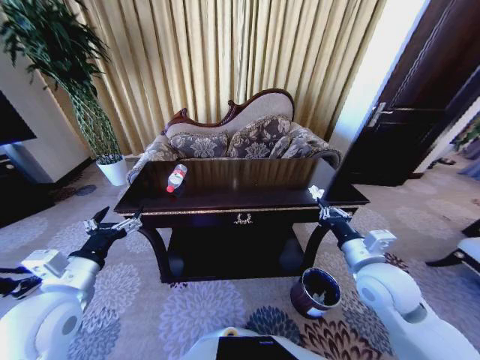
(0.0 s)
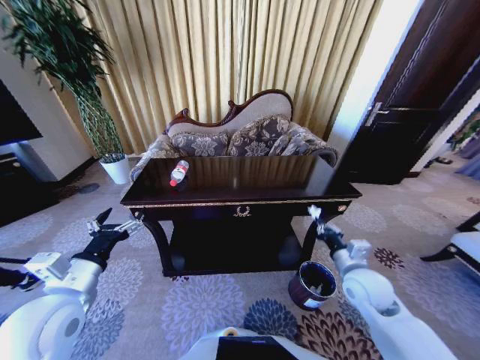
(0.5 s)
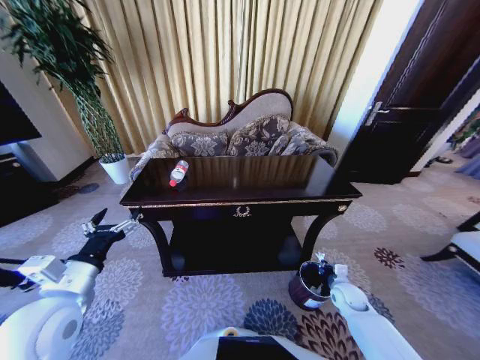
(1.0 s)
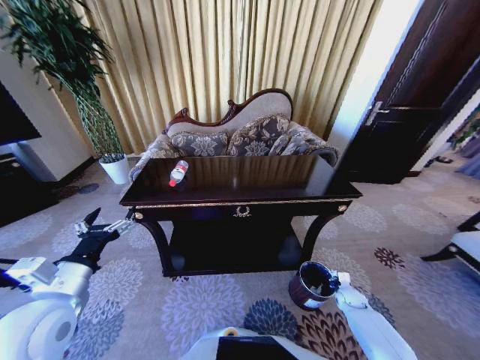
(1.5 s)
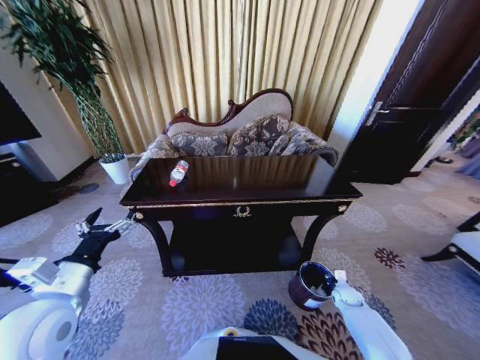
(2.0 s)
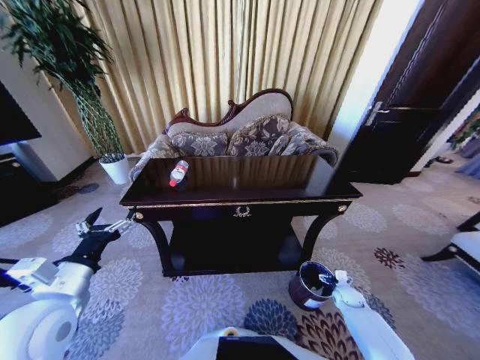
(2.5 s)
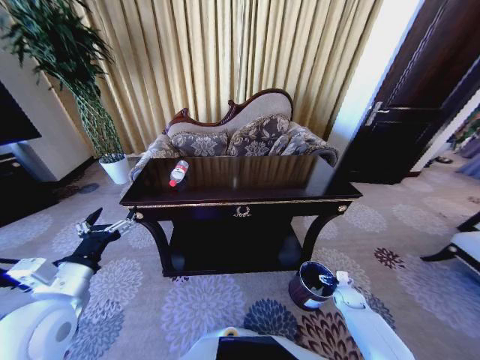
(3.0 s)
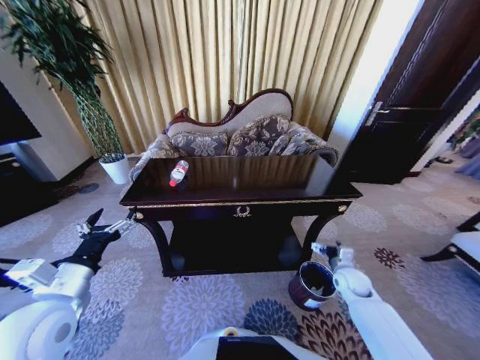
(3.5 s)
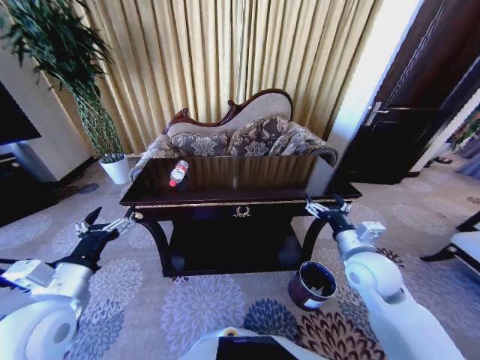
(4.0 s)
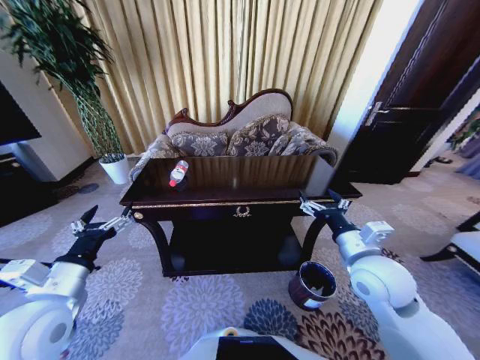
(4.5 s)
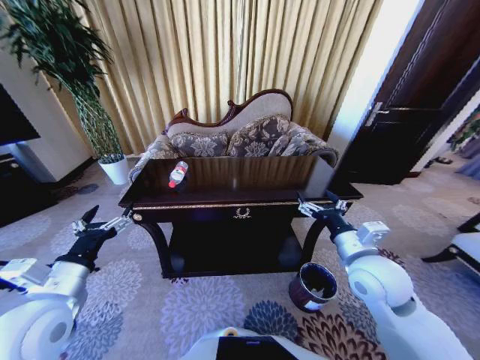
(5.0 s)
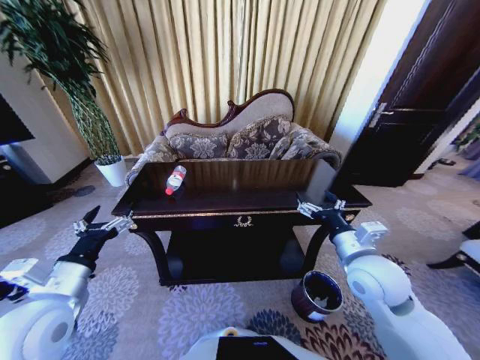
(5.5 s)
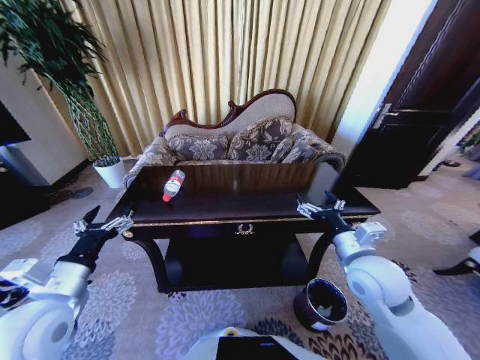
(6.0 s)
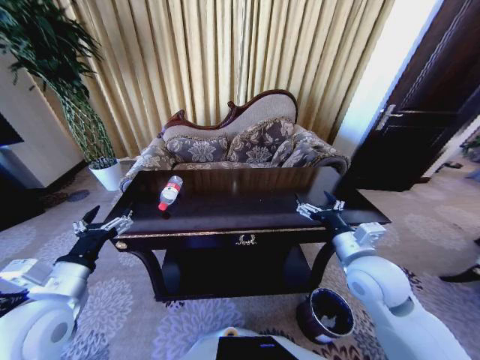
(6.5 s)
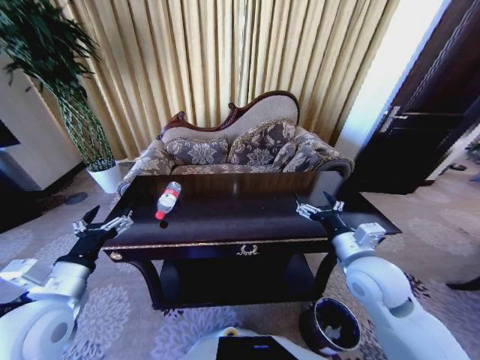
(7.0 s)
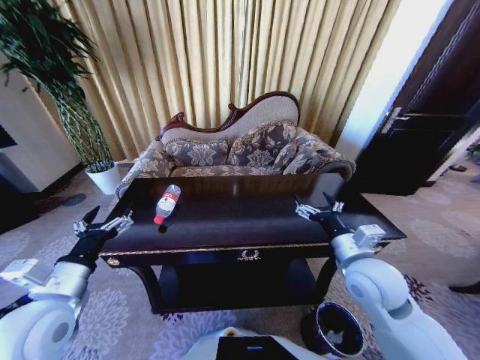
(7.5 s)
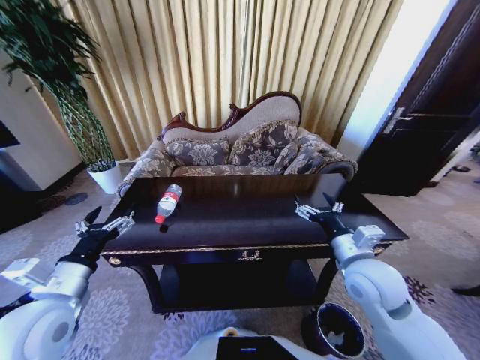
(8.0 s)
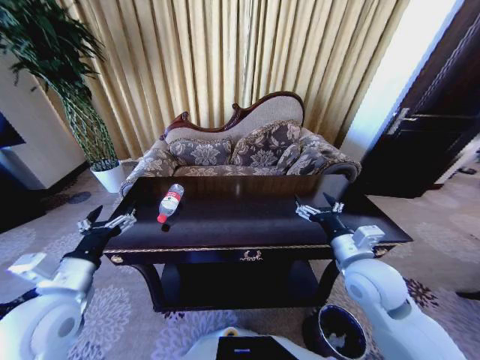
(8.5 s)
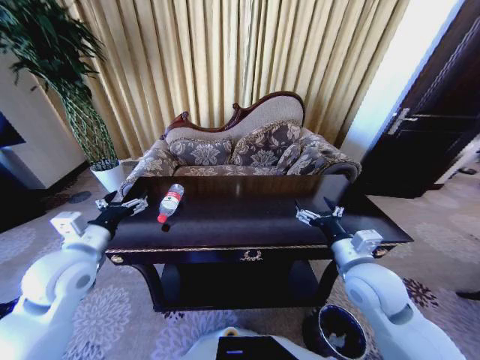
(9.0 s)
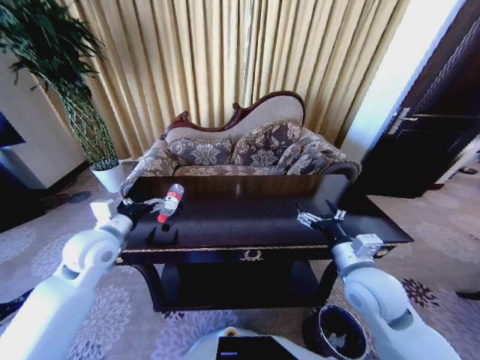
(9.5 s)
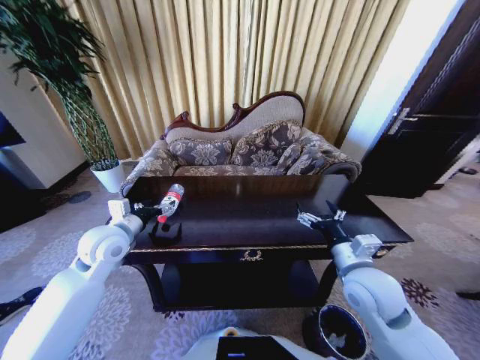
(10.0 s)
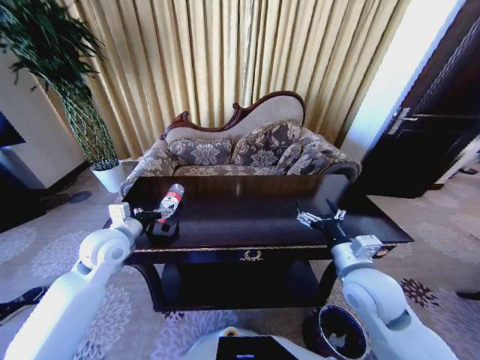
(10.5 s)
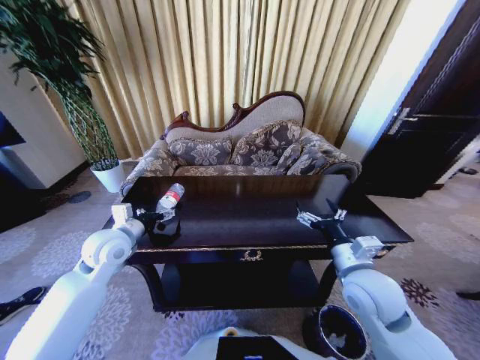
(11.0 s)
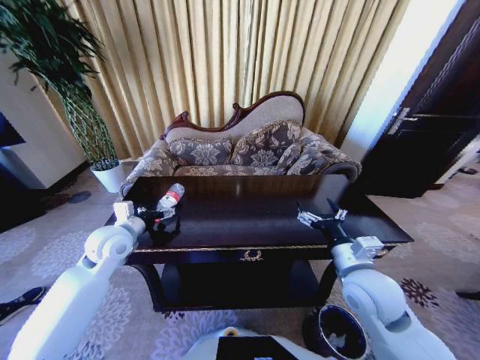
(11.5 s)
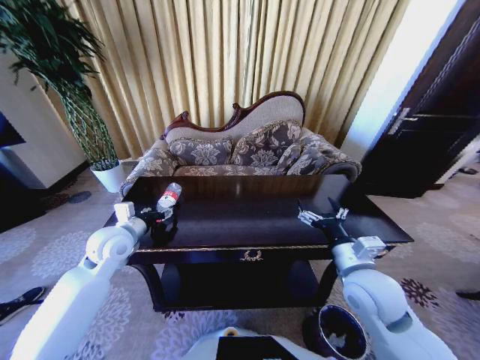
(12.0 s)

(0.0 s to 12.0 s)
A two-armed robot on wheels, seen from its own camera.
Task of the whole recording: Move to the front of the table and place the trash on the table into the trash bin.
0.0 s - 2.0 s: The right gripper shifts approximately 35 cm downward and to the right, and opens.
2.0 s - 4.0 s: The right gripper heads upward and to the left, covering approximately 35 cm, and opens.
8.0 s - 10.0 s: The left gripper moves forward, approximately 15 cm.
10.0 s - 12.0 s: The left gripper closes.

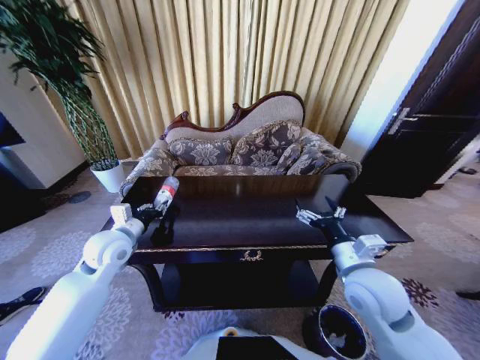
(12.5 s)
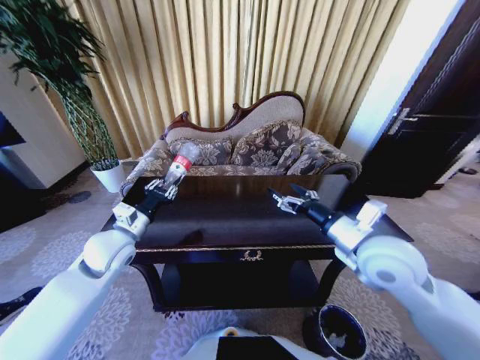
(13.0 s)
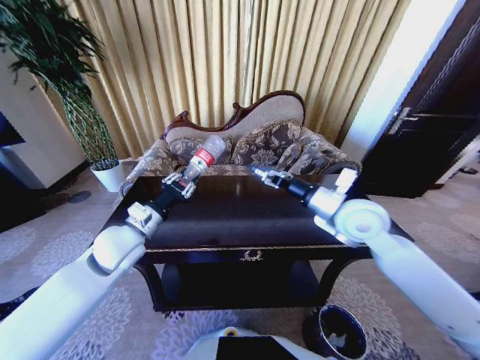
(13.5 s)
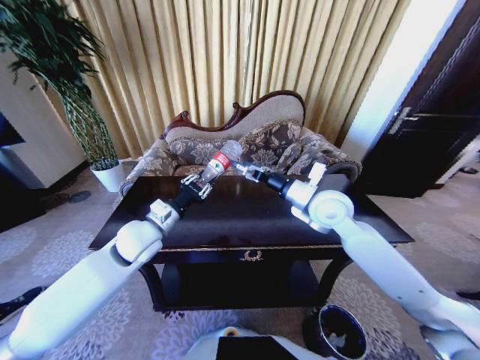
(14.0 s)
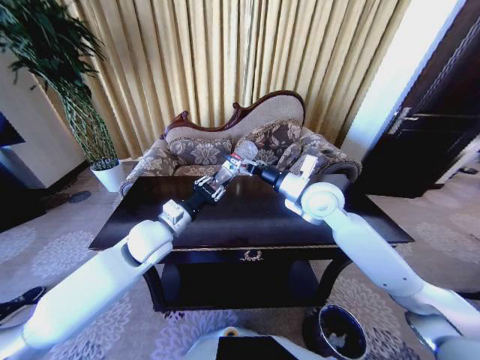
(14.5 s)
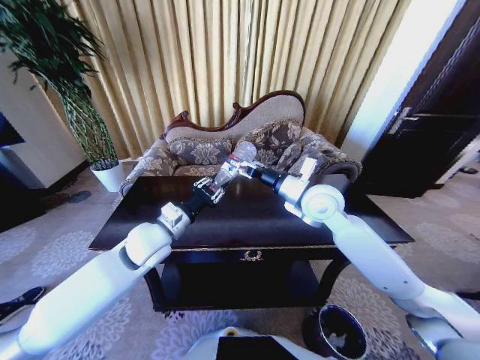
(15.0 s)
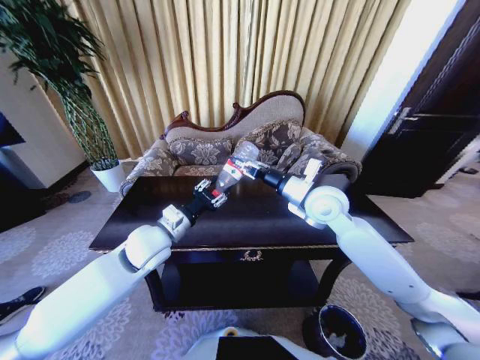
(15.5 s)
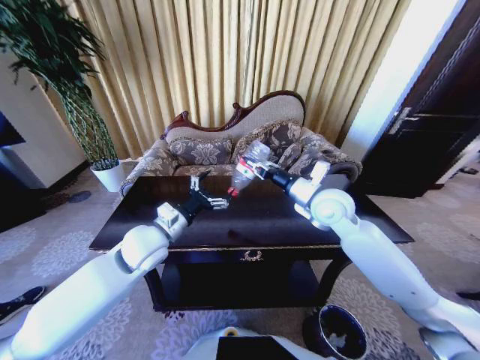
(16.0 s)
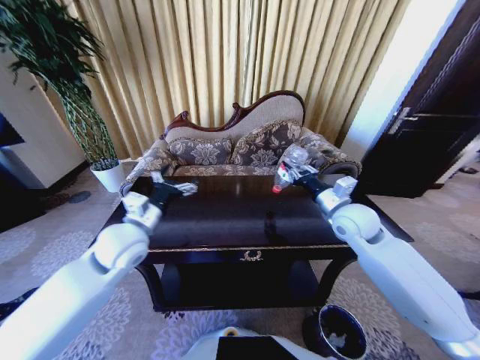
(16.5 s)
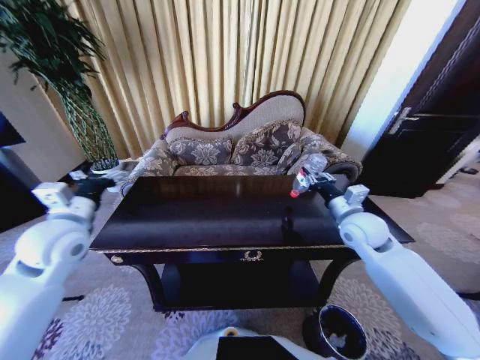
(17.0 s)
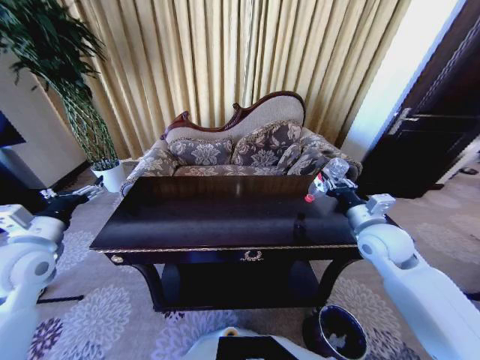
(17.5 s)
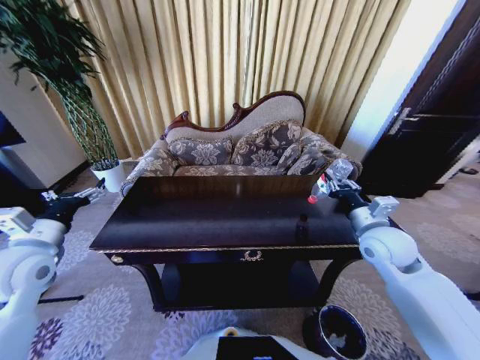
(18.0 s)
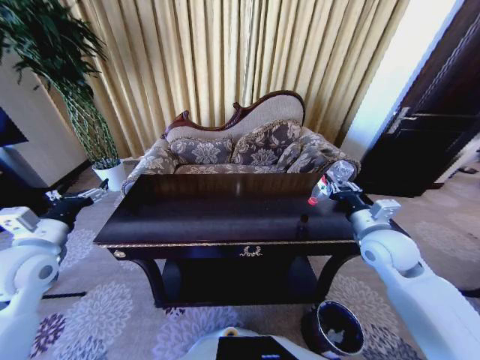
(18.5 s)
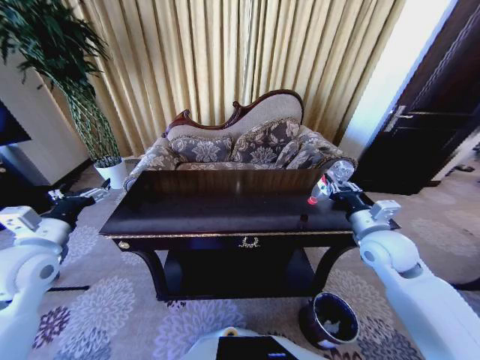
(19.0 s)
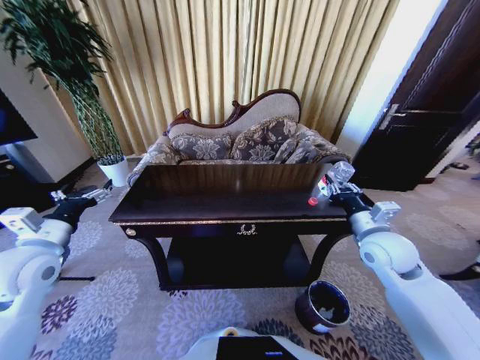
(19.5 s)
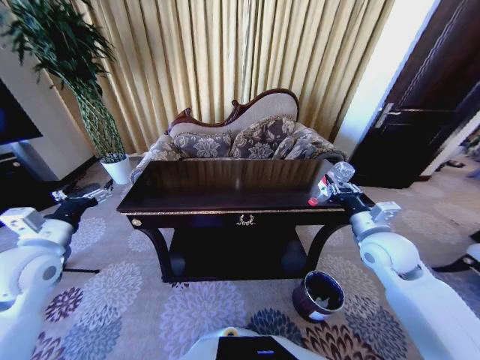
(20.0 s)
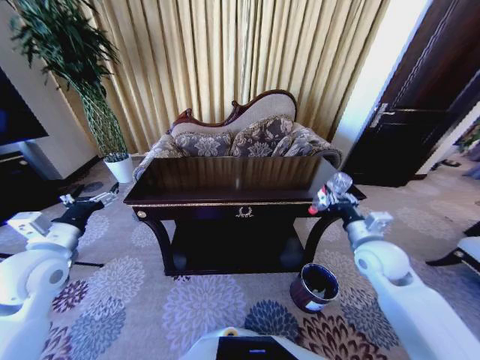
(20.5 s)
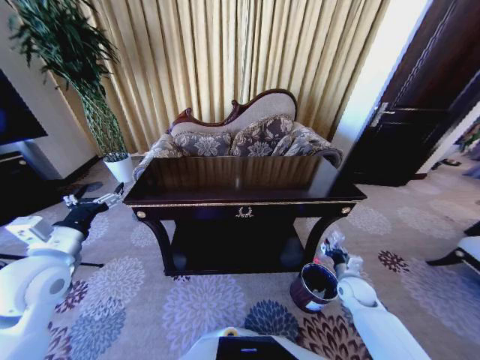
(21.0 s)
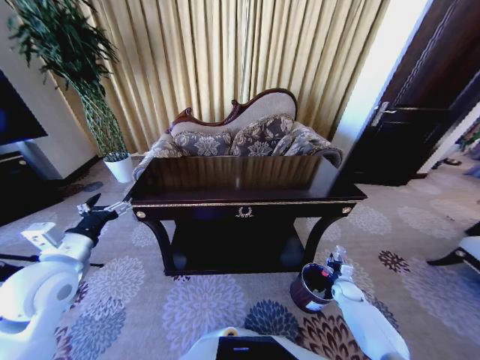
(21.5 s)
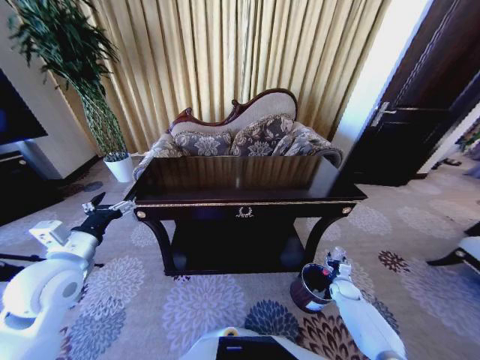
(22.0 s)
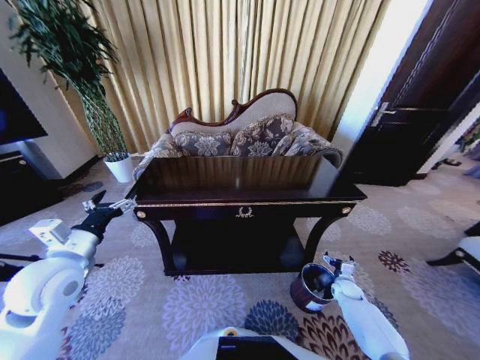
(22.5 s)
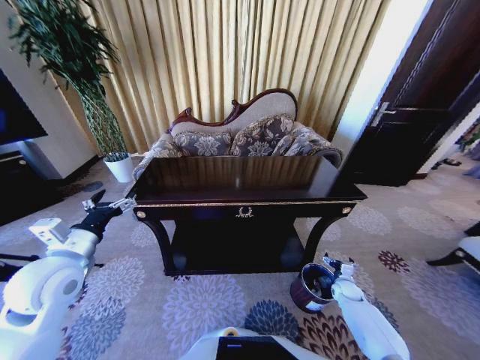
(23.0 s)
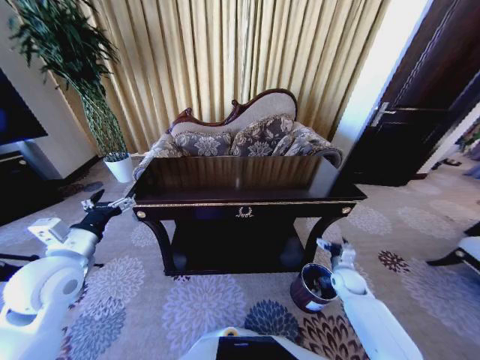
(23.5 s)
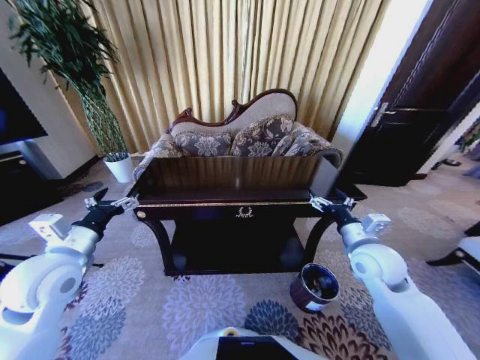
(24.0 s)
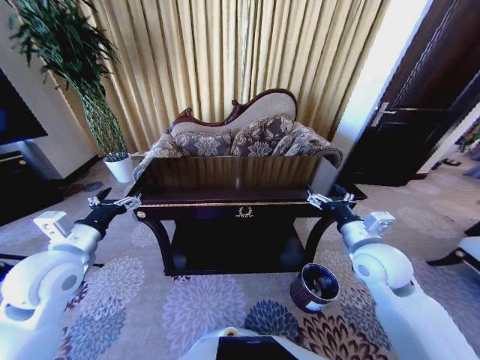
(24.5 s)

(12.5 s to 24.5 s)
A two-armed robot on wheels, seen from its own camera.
Task of the whole recording: Move to the front of the table and place the trash on the table into the trash bin.
12.5 s - 14.5 s: The right gripper goes roughly 20 cm forward and upward. Meanwhile the left gripper heads to the right, covering approximately 10 cm.
14.5 s - 16.5 s: The left gripper shifts by approximately 5 cm, and opens its fingers. Meanwhile the right gripper goes approximately 10 cm to the right, and closes.
16.5 s - 18.5 s: The right gripper moves backward and to the right, approximately 10 cm; the left gripper shifts approximately 15 cm to the left.
20.5 s - 22.5 s: The right gripper goes roughly 30 cm downward, and opens.
22.5 s - 24.5 s: The right gripper goes some 35 cm upward.

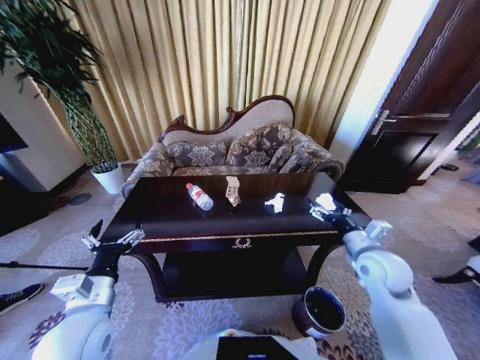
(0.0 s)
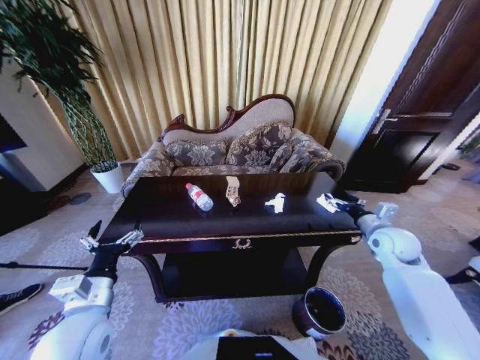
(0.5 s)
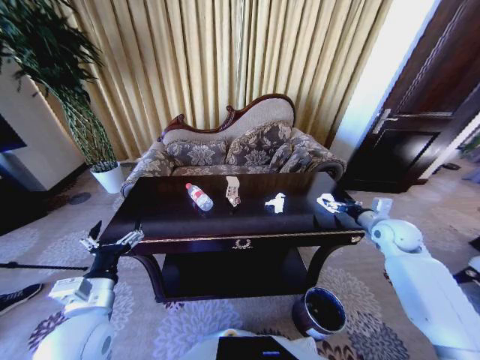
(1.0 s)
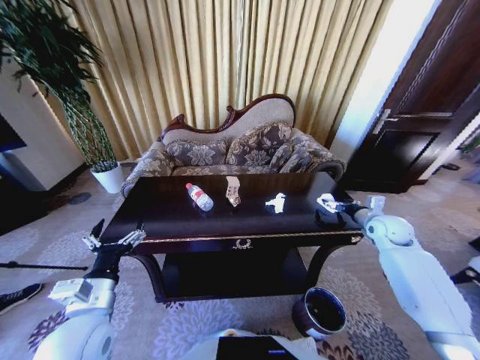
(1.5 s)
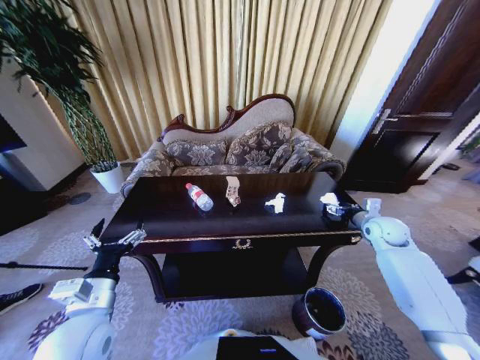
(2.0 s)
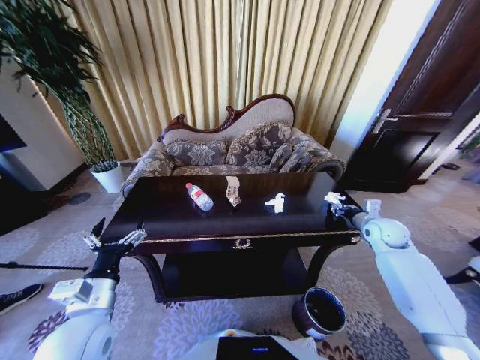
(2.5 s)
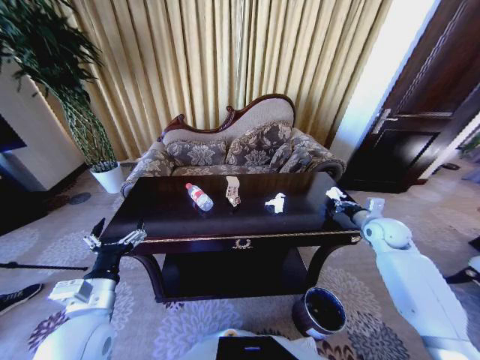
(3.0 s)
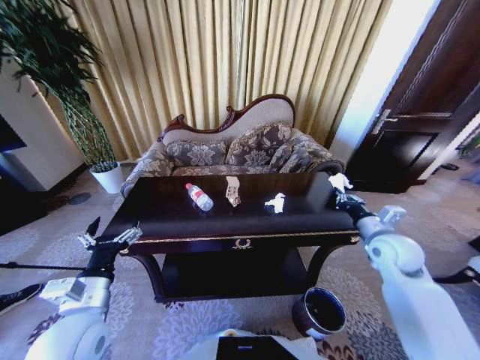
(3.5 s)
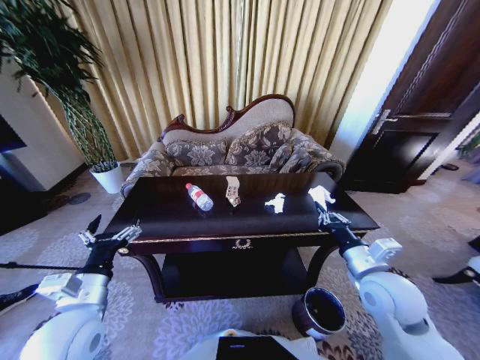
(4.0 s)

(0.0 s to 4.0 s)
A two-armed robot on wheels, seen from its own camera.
Task of the whole recording: Move to the front of the table and place the trash on the table into the trash bin.
0.0 s - 2.0 s: The right gripper goes roughly 20 cm forward and to the right.
2.0 s - 4.0 s: The right gripper goes about 25 cm backward and to the left, and closes up.
